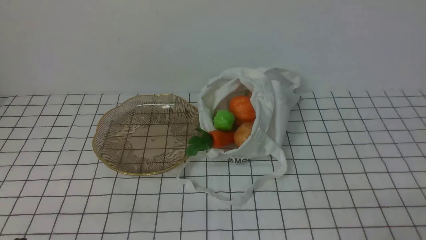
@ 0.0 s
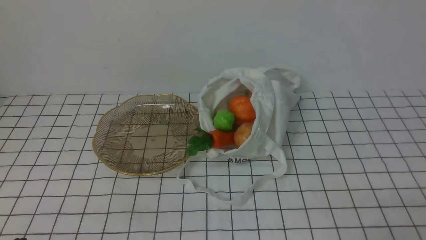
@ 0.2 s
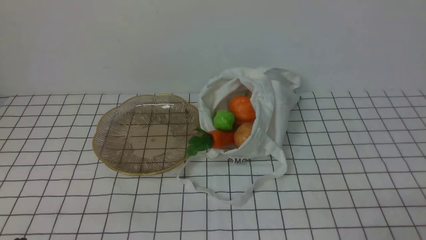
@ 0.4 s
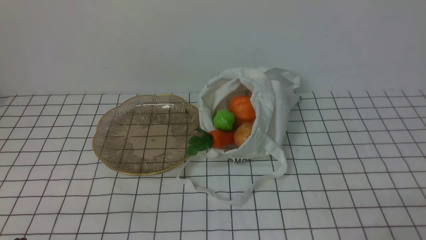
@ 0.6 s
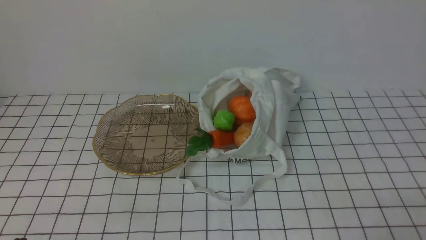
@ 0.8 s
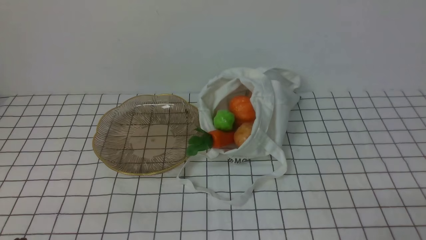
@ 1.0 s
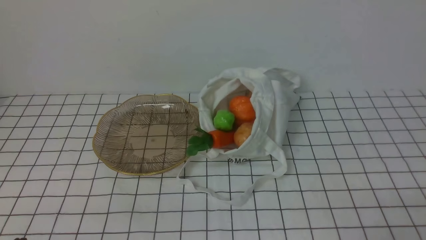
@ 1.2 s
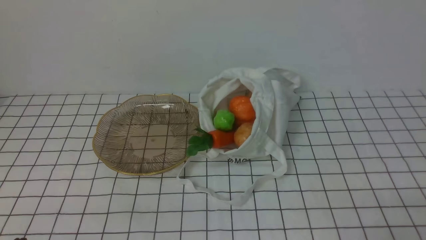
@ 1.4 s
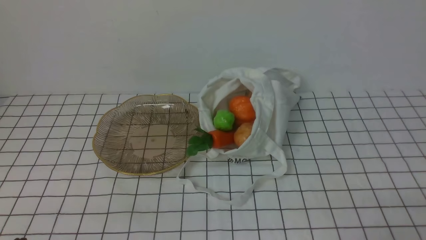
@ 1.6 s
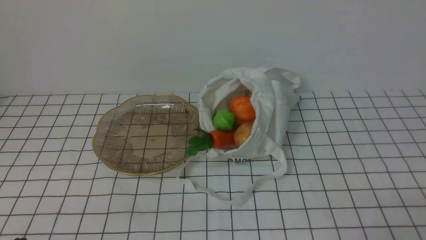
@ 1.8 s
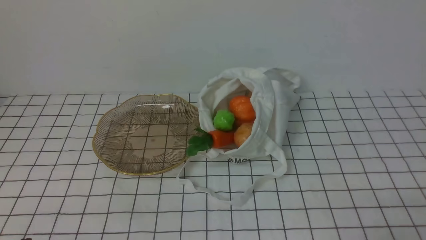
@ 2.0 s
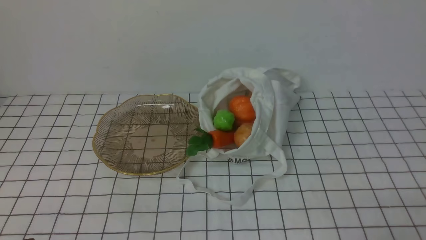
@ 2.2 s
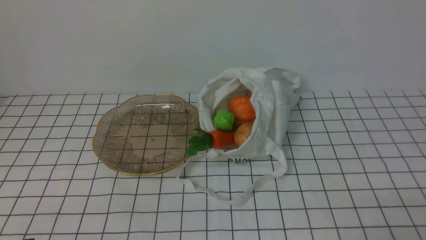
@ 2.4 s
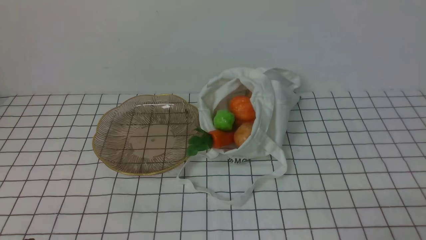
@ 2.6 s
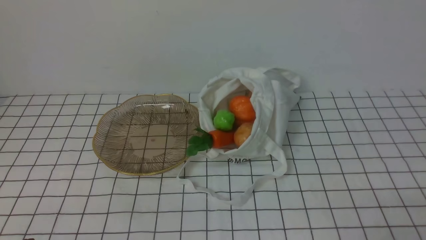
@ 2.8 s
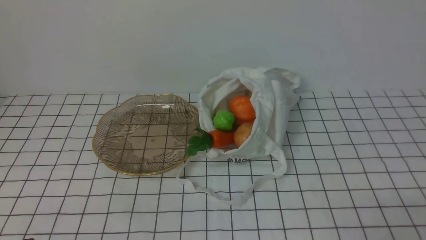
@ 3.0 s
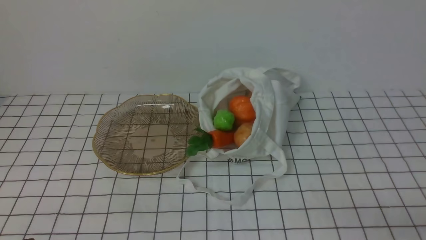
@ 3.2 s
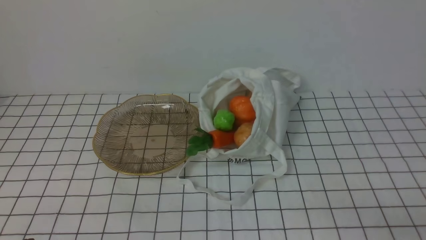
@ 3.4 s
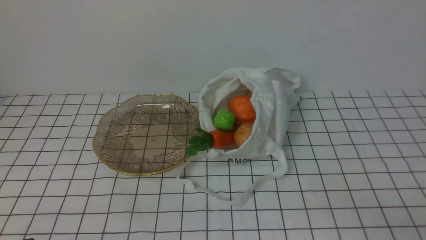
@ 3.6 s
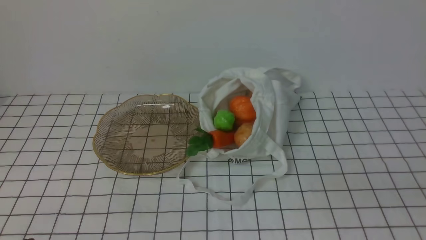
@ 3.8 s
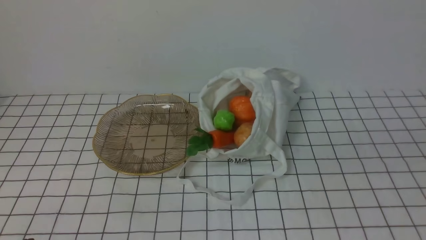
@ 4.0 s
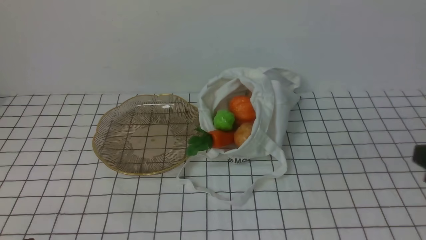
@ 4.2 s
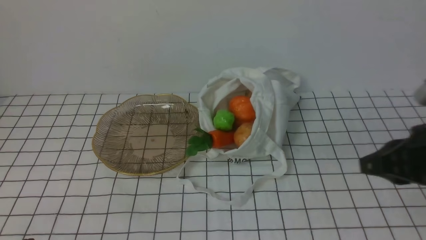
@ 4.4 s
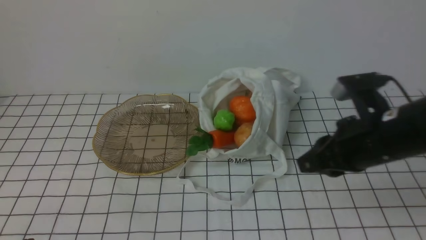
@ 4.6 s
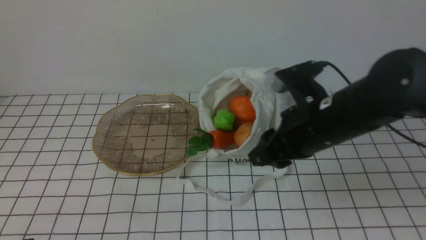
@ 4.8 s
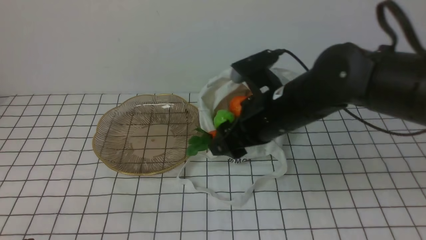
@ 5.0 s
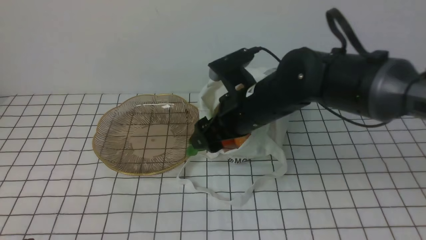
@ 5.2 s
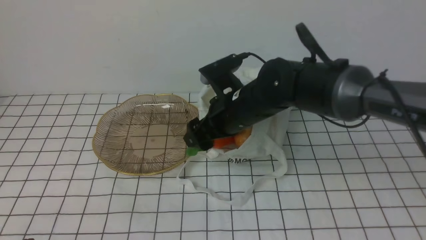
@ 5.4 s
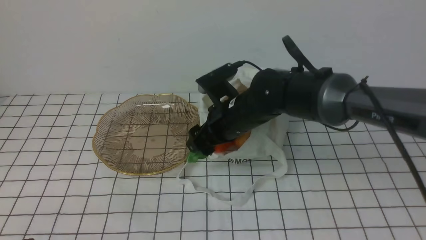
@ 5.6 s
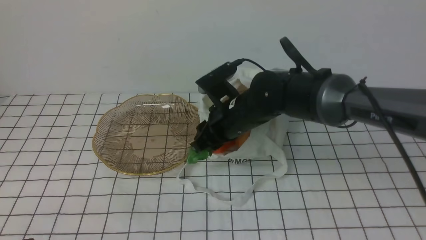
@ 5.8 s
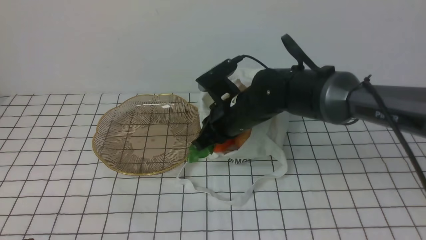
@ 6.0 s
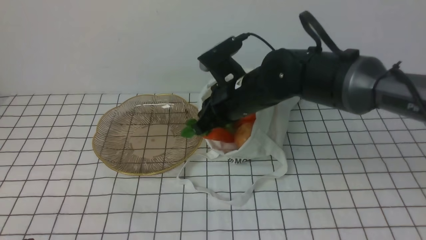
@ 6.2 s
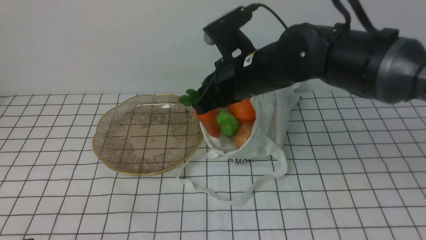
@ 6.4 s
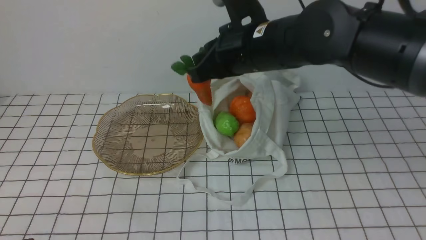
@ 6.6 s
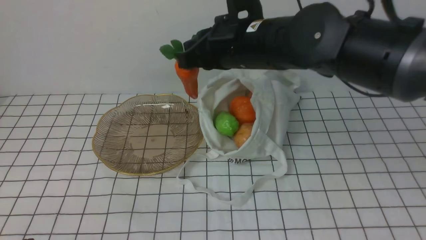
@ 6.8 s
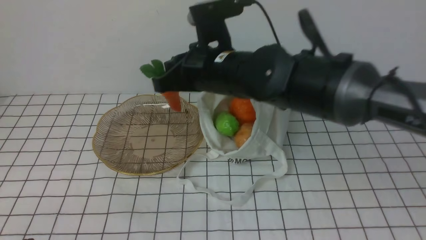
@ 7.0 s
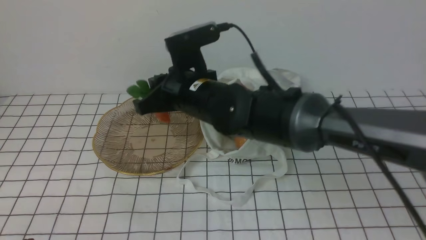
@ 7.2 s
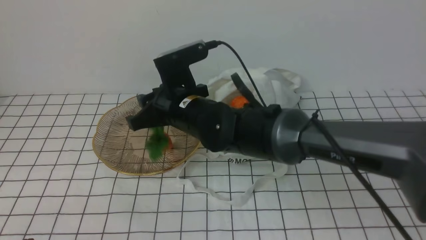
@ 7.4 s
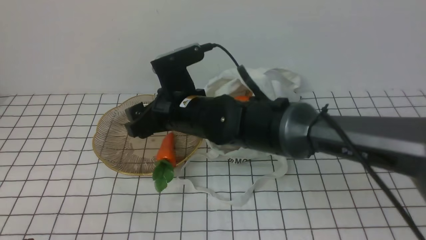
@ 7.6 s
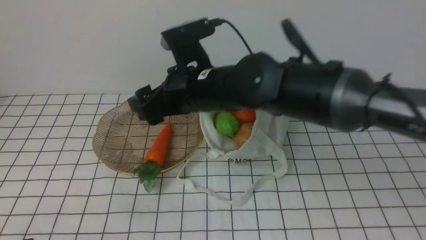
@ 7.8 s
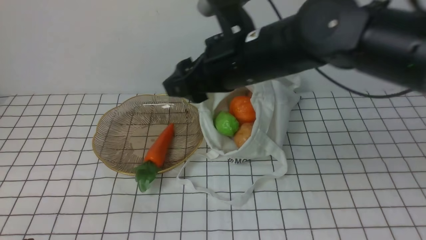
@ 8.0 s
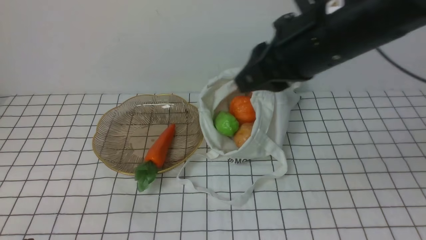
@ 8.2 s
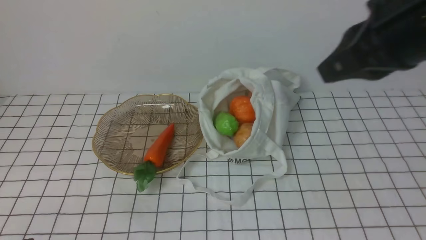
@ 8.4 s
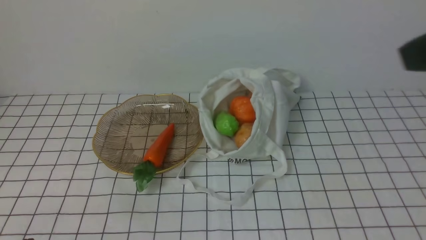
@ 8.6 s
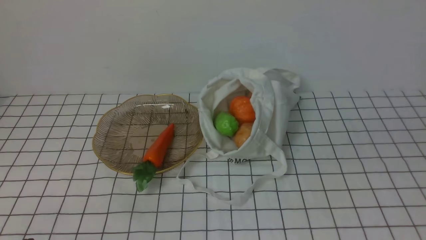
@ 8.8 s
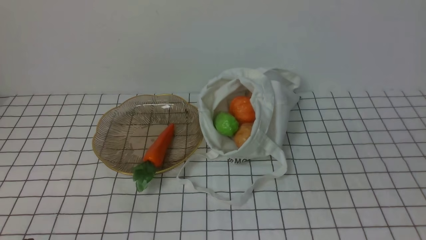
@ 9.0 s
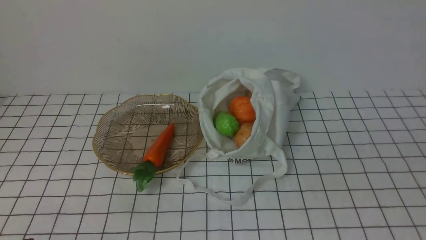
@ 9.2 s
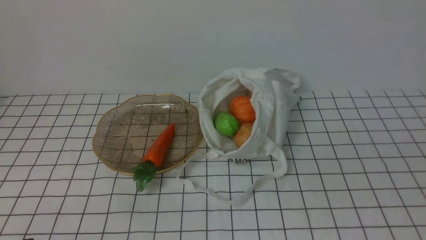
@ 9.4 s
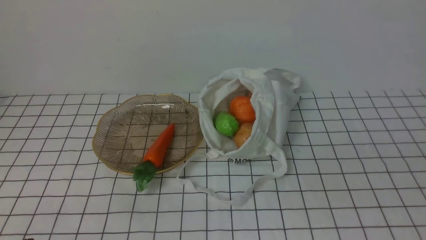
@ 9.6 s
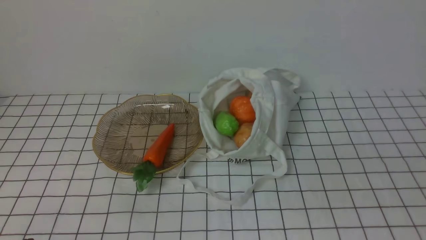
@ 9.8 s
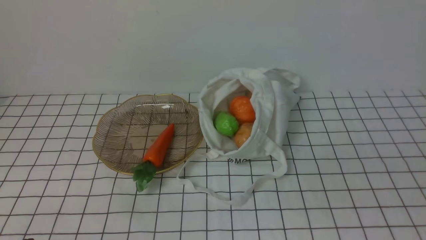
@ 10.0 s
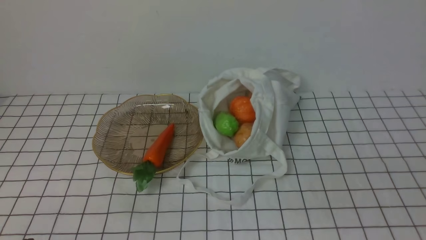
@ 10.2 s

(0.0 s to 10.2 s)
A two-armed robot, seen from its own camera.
Task of the whole recording: take vegetables from bag on white checkered tablecloth place on plate.
Step, 0.0 s - 5.8 s: Grasp the carrot with right gripper.
Step, 6.0 s - 7.8 s: Place the carrot on the plate with right gripper.
0.0 s - 1.4 s: The two grippers keep their place.
3.0 s - 4.4 s: The right gripper shifts roughly 20 cm forward and upward.
4.4 s - 5.8 s: The right gripper is displaced to the left, forward and downward by some 25 cm, and opens its fingers.
5.8 s - 7.2 s: The right gripper moves to the left and upward, approximately 10 cm.
7.2 s - 8.8 s: The right gripper goes approximately 50 cm to the right, backward and upward, and opens, then closes once more.

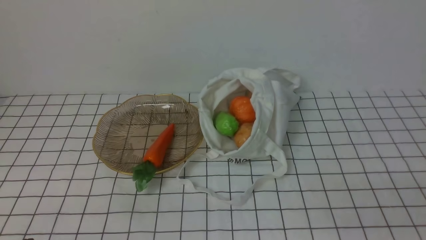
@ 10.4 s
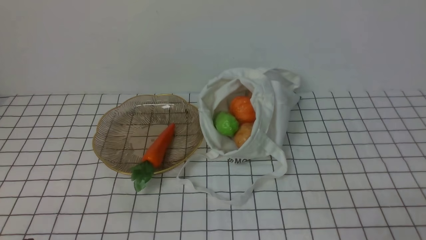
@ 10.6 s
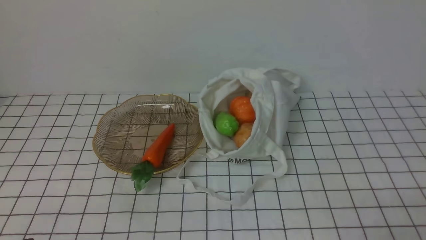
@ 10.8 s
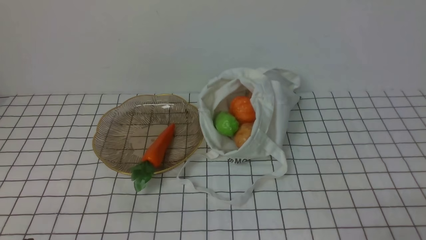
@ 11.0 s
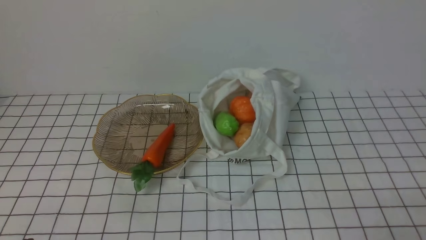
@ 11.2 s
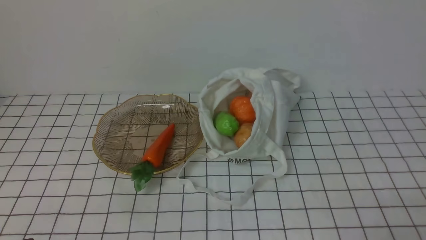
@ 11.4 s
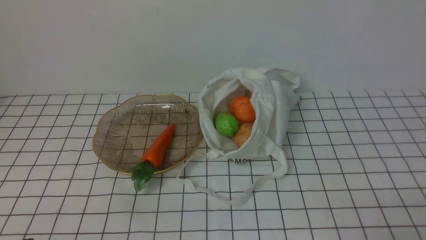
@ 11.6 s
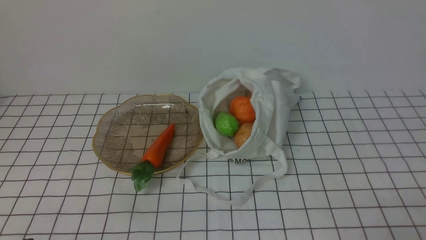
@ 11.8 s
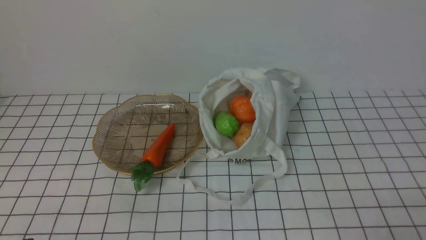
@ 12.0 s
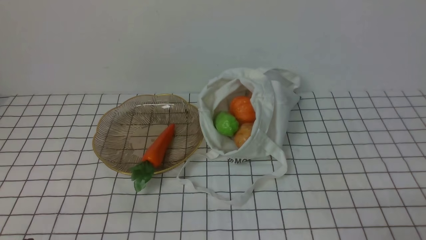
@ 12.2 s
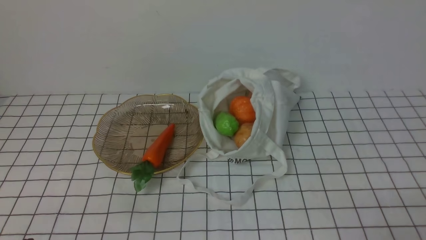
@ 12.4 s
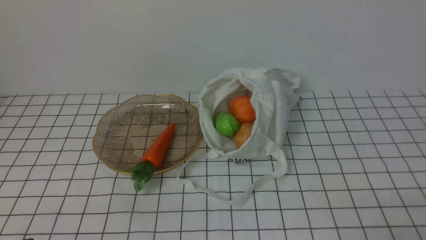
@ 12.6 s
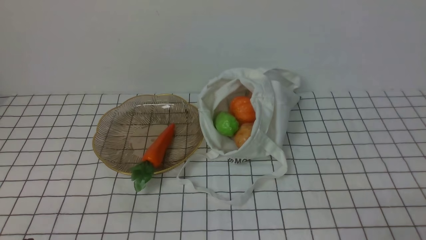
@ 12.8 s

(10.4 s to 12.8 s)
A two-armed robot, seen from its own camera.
Task of the whole recording: take vegetables from bag on white checkered tablecloth place on plate.
11.6 s - 12.8 s: Both grippers stay put.

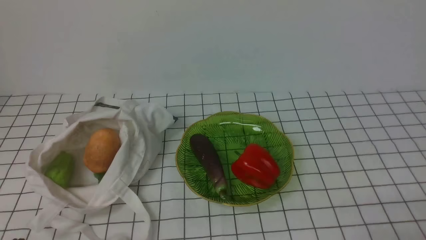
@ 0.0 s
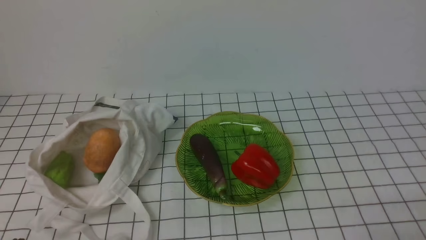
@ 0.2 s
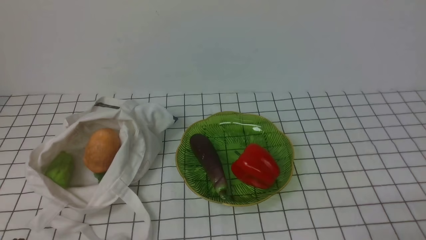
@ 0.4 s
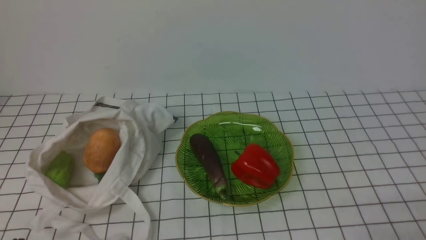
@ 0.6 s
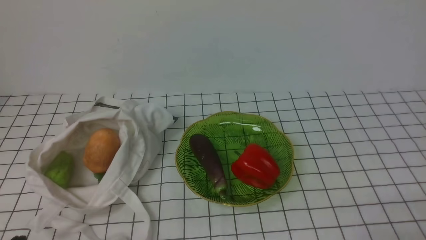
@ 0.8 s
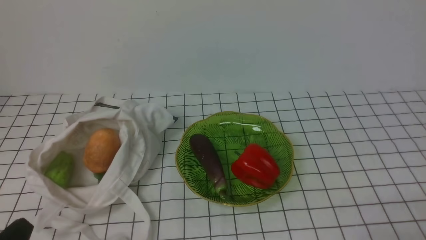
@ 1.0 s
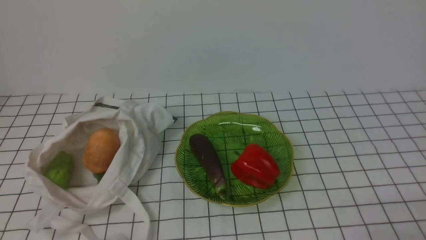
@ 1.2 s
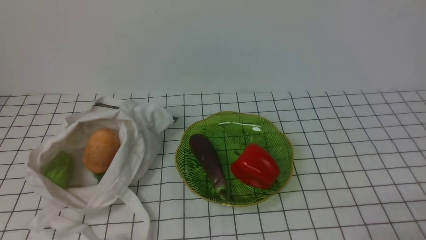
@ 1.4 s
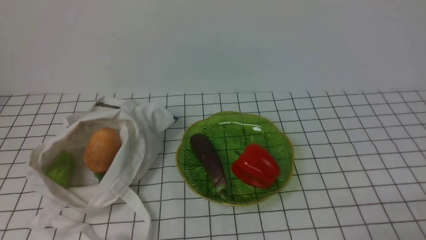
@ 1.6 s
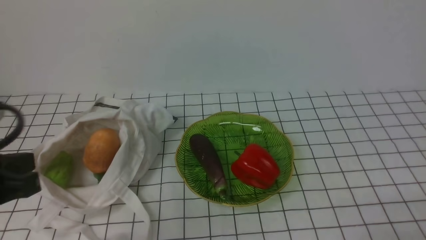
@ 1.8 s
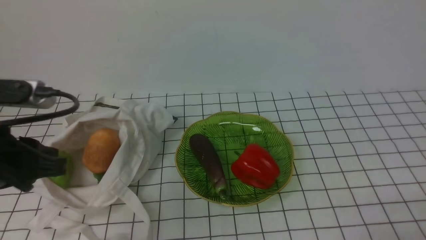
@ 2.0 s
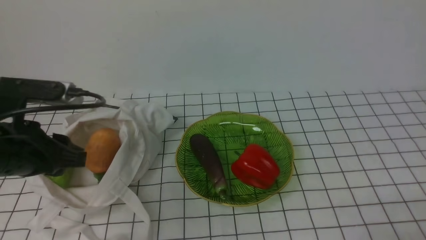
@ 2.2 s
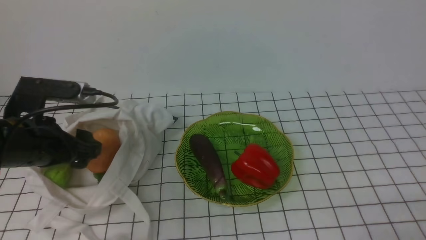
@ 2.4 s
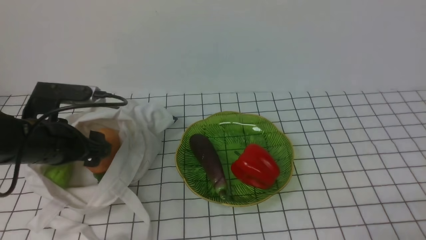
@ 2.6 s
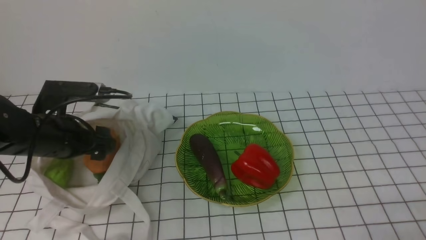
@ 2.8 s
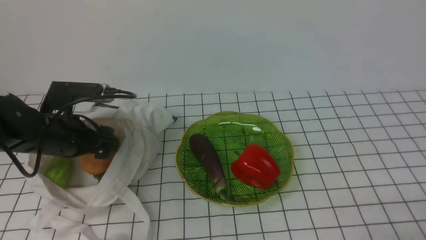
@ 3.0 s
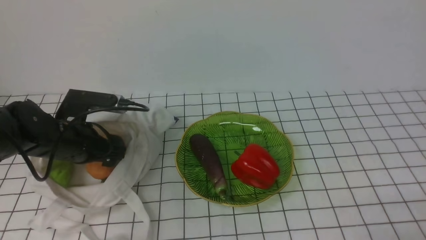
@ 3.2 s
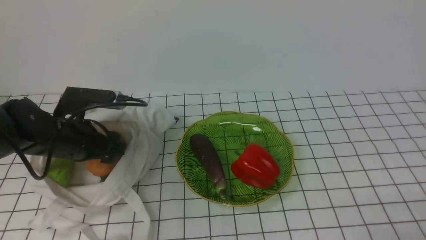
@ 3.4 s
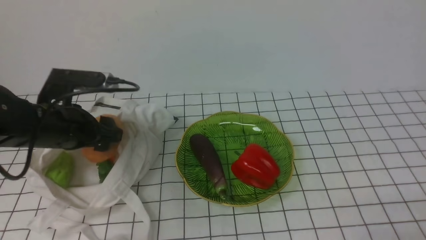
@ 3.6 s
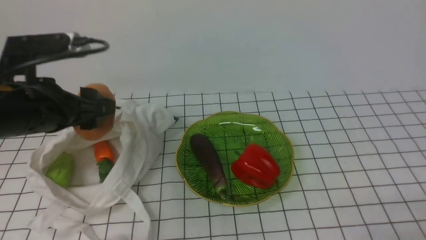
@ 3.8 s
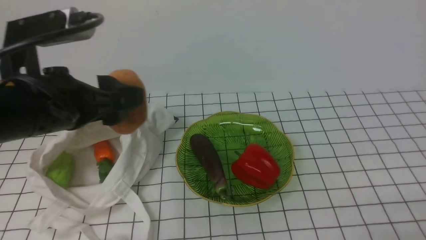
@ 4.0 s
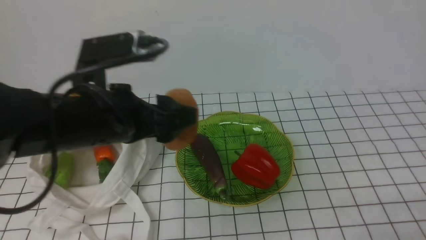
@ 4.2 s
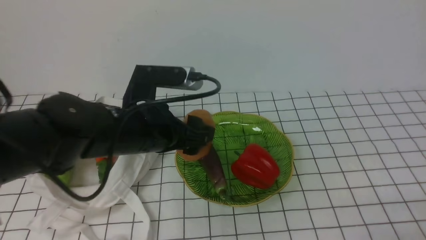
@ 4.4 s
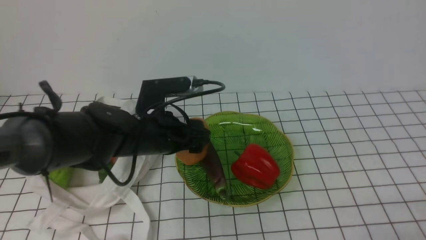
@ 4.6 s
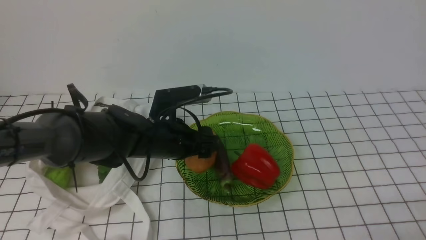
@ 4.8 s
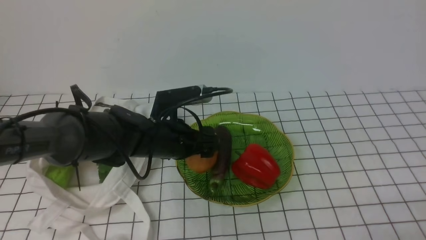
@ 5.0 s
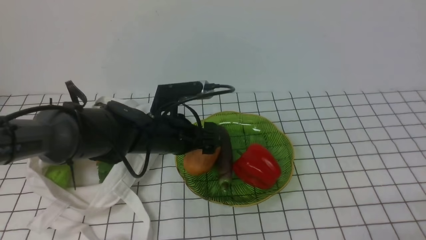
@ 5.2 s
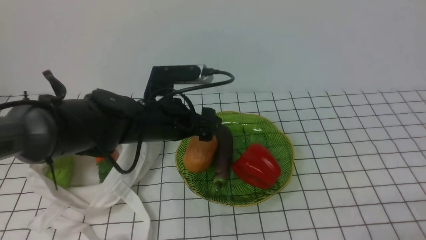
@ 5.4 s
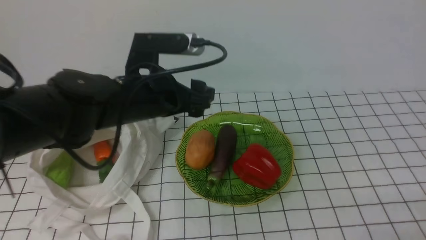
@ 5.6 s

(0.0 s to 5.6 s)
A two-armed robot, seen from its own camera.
Task of the whole recording: take vegetables from bag on white checkered tablecloth place on plate.
Step, 0.0 s - 3.2 s: Grasp the potato with left gripper.
Step, 3.4 s - 5.4 s: Place the potato on the plate with left gripper.
1.4 s - 2.8 s: The left gripper moves forward, some 25 cm, and opens up.
2.8 s - 4.2 s: The left gripper shifts approximately 10 cm upward and to the right.
4.2 s - 5.6 s: The left gripper shifts roughly 10 cm forward, to the right and downward.
